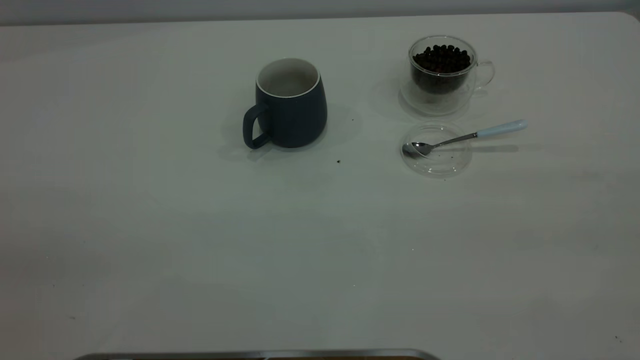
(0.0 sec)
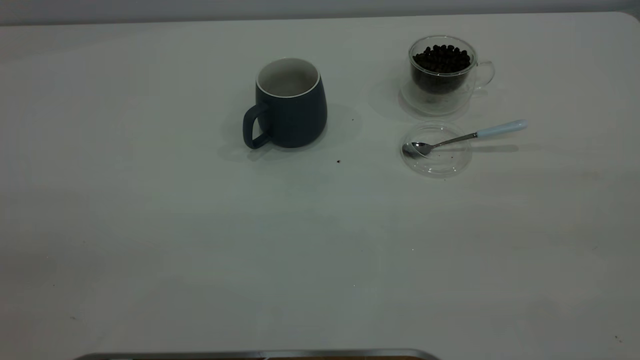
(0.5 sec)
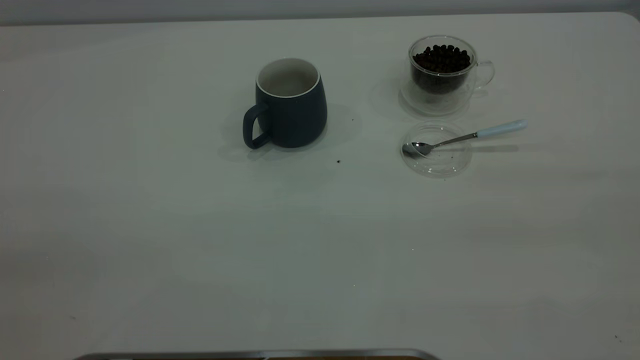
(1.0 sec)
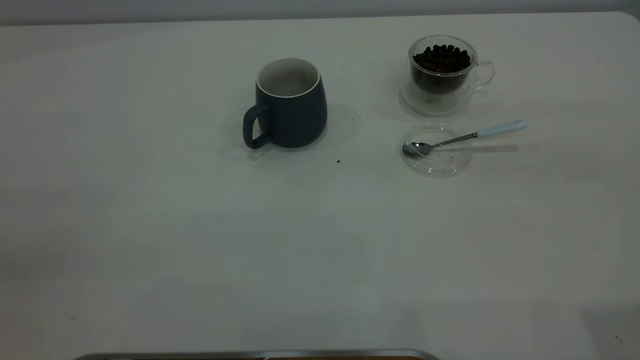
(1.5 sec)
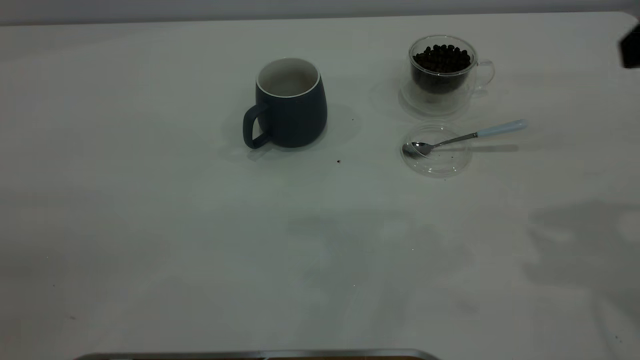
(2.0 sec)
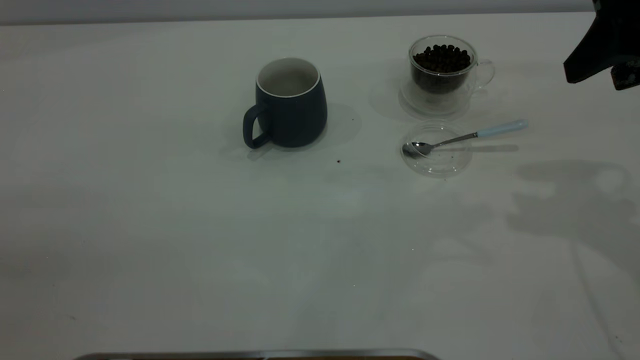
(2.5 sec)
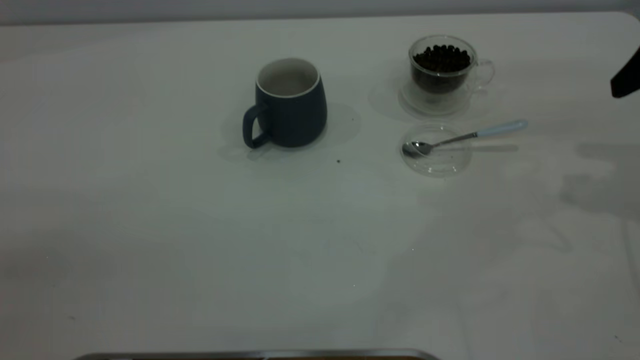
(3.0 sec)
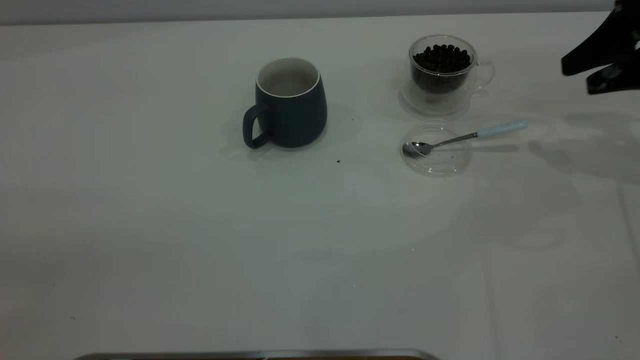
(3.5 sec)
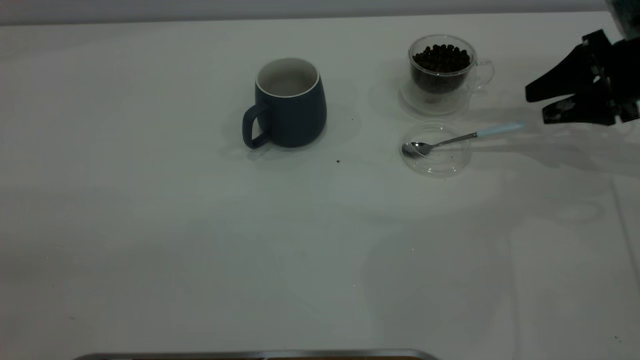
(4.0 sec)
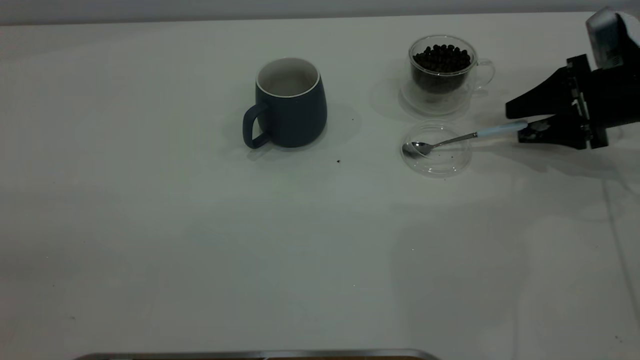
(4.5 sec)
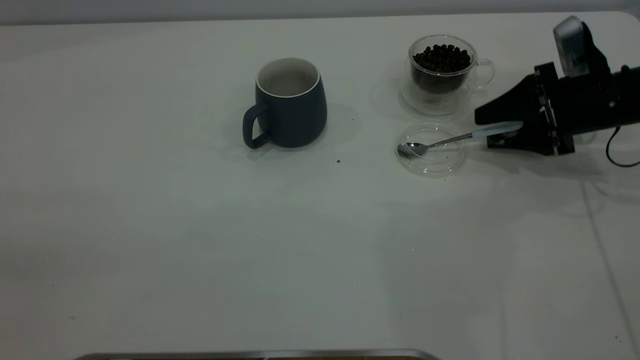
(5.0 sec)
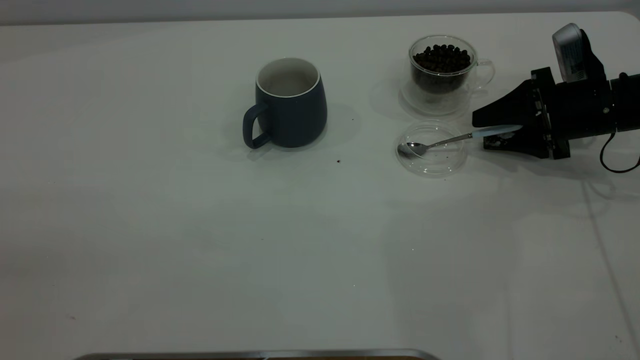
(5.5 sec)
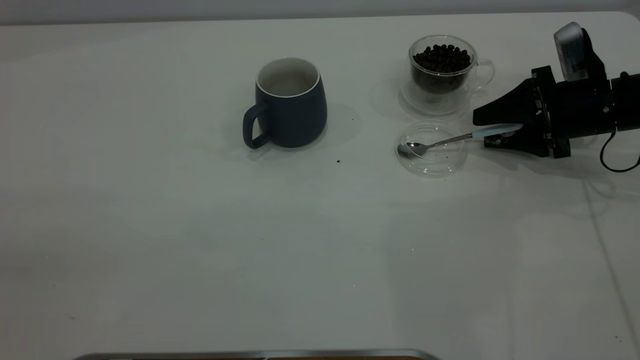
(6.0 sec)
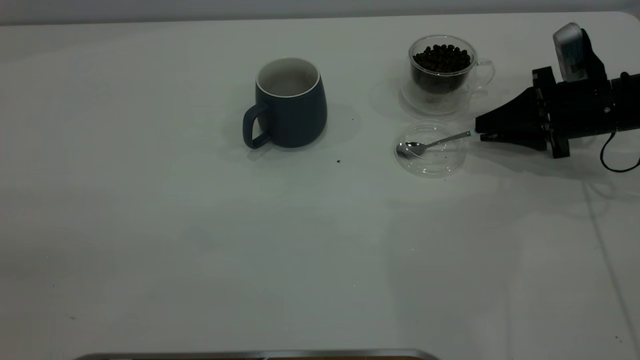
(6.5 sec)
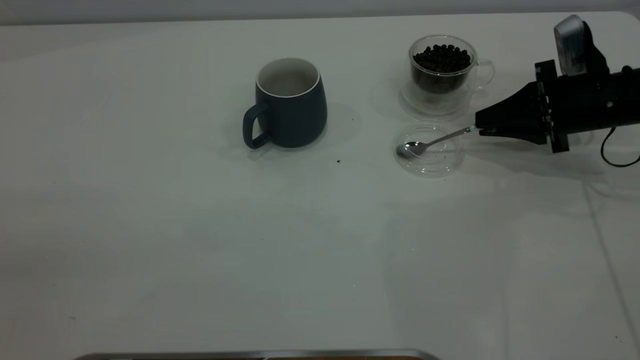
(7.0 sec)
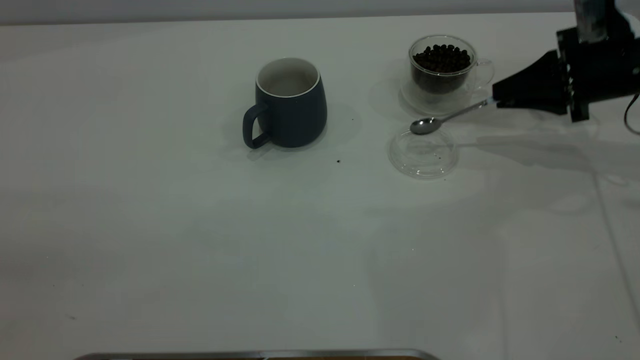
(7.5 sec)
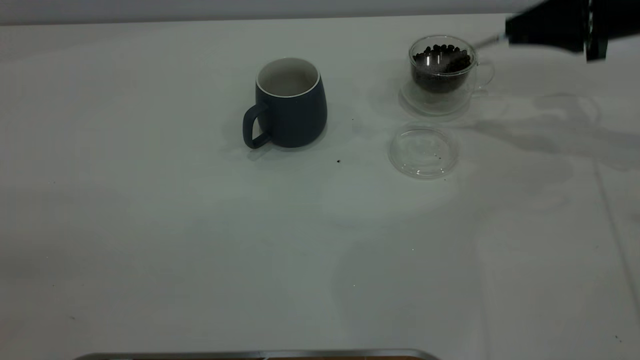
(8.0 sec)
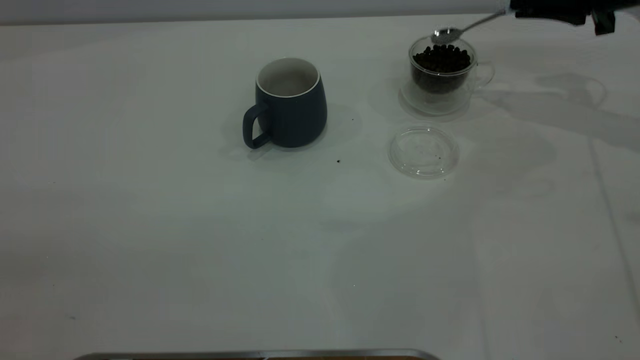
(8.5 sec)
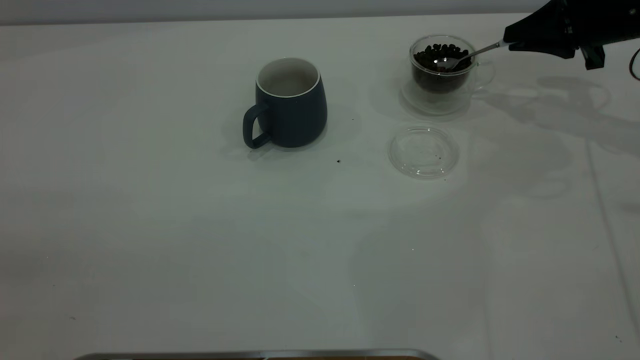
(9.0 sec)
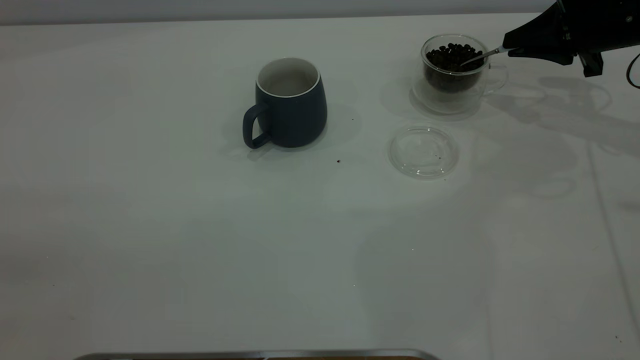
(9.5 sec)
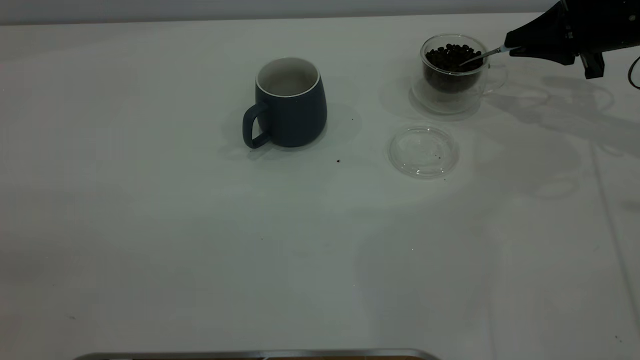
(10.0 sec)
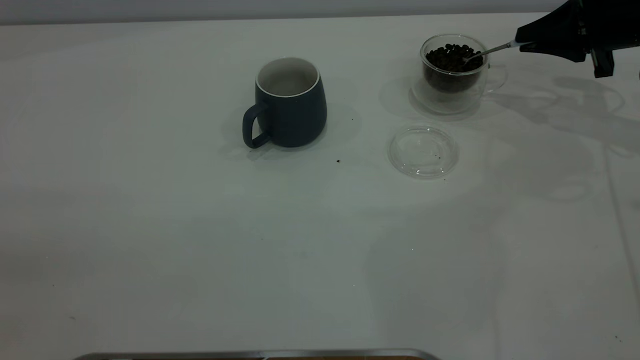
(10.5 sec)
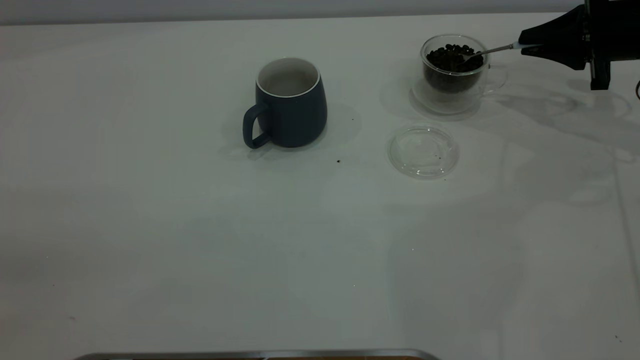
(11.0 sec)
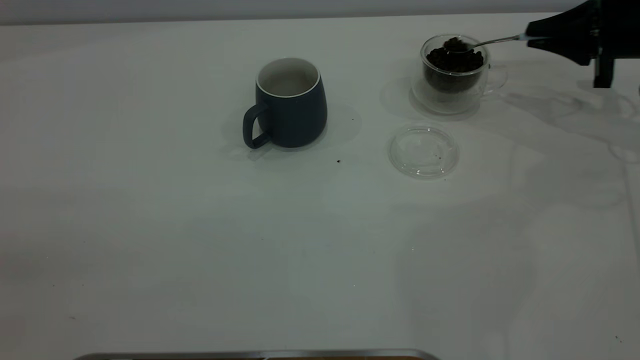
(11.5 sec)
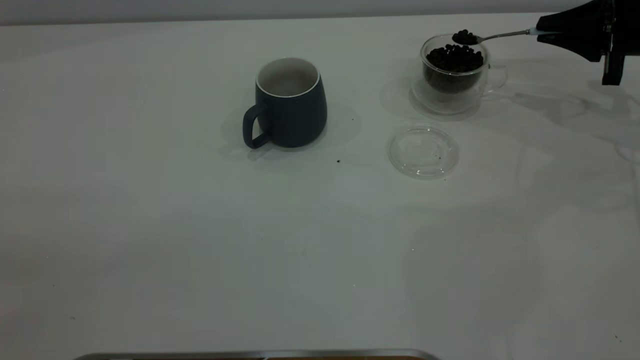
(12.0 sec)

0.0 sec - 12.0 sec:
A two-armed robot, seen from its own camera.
Task of the whole recording: the left gripper place the grey cup in the center of the table, the right gripper take the blue spoon from the cup lid and scoop out the coffee beans from the coffee cup and put them into the grey cup, the right gripper put the spoon back into the cup lid.
Step, 0.0 sec - 7.5 sec: Pick up the spoon.
2.0 sec - 4.0 sec: The right gripper travels downward and forward by some 25 cm.
4.0 sec - 6.0 sec: The right gripper is displaced downward by about 5 cm.
6.0 sec - 8.0 sec: The right gripper goes roughly 10 cm upward, and closes.
8.0 sec - 10.0 sec: The right gripper ends up roughly 5 cm from where it was.
10.0 sec - 12.0 sec: The grippers move only a little.

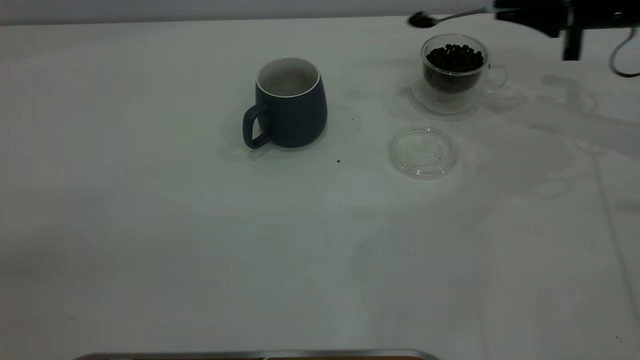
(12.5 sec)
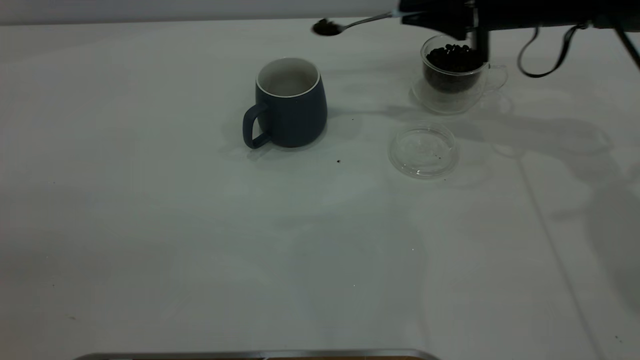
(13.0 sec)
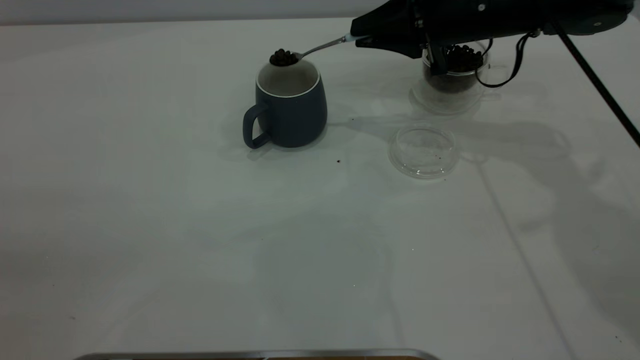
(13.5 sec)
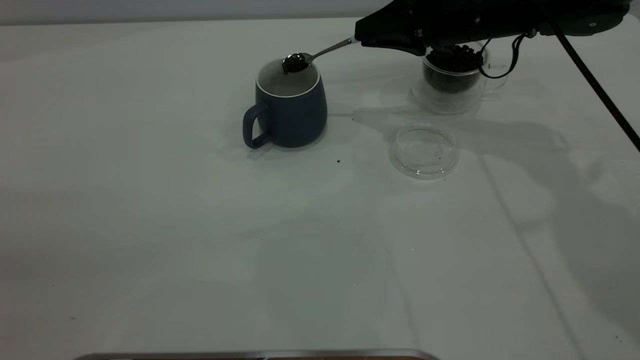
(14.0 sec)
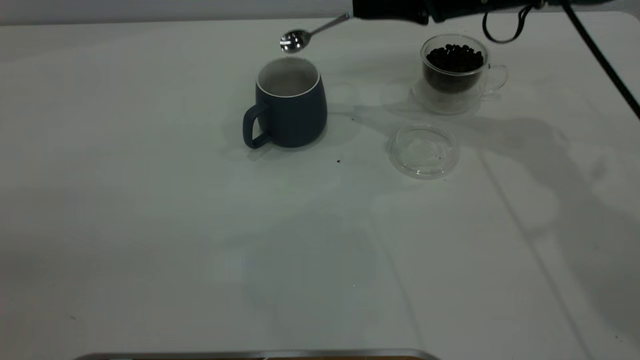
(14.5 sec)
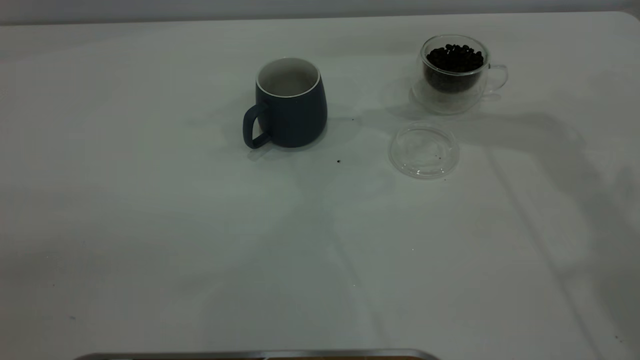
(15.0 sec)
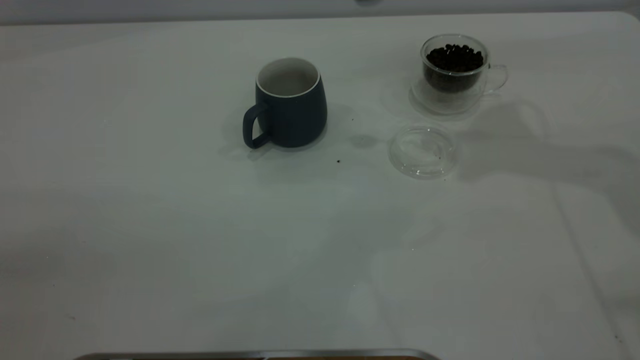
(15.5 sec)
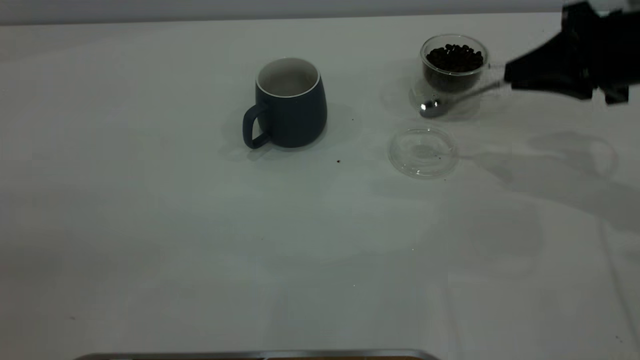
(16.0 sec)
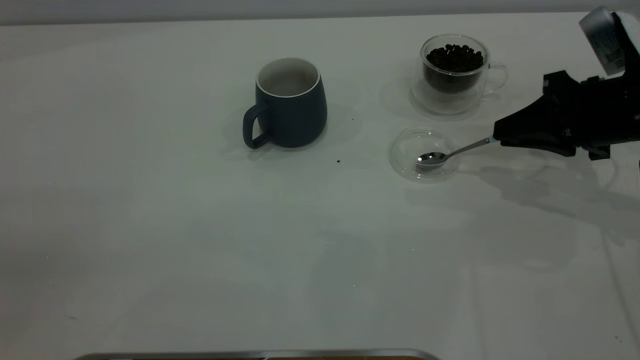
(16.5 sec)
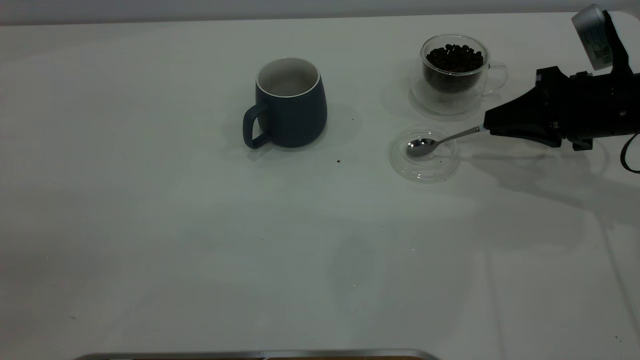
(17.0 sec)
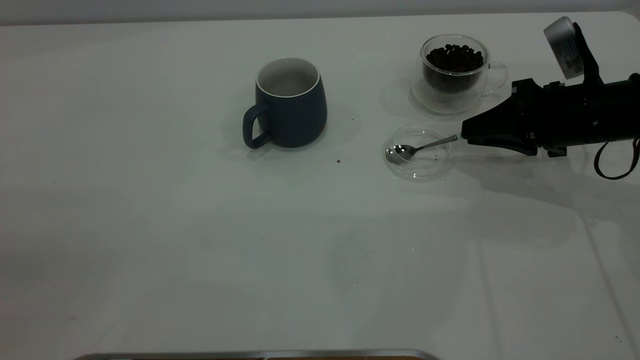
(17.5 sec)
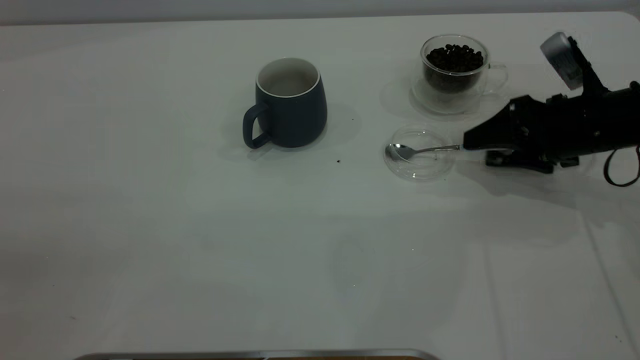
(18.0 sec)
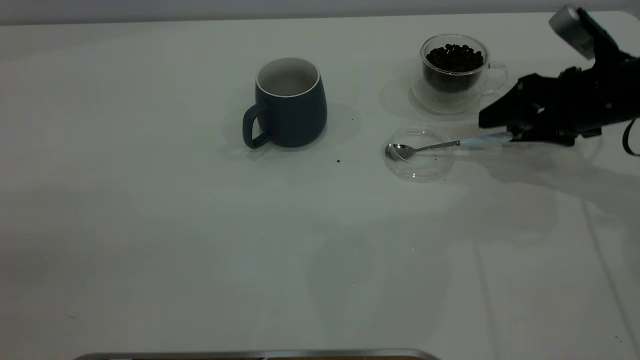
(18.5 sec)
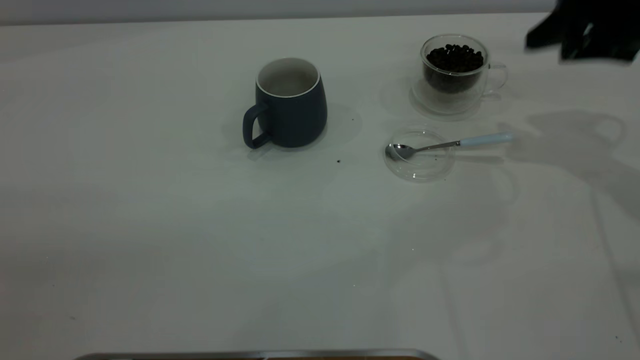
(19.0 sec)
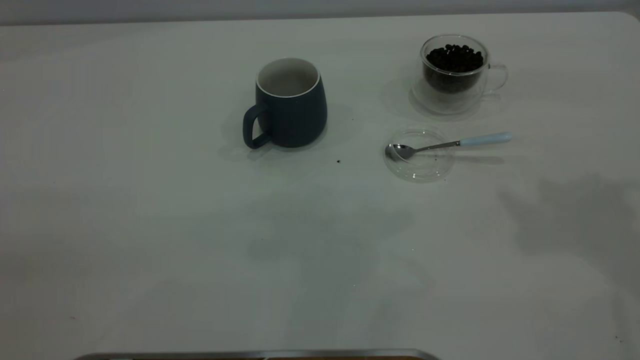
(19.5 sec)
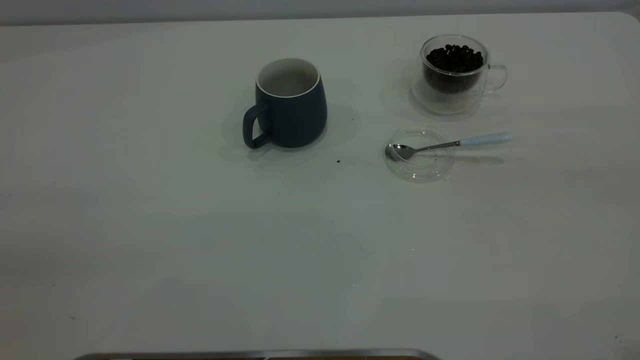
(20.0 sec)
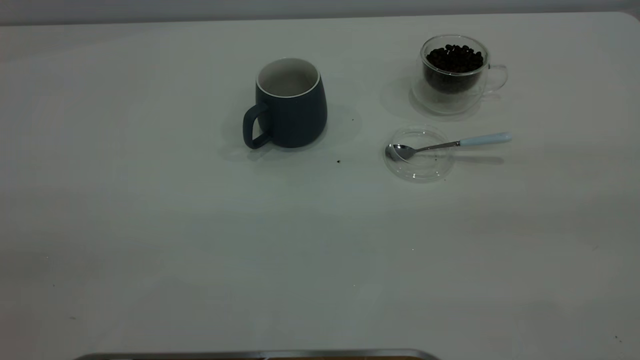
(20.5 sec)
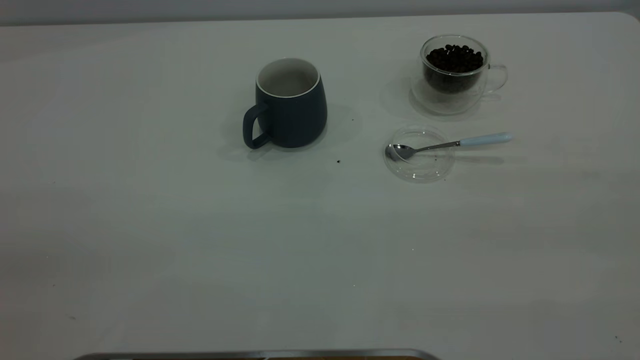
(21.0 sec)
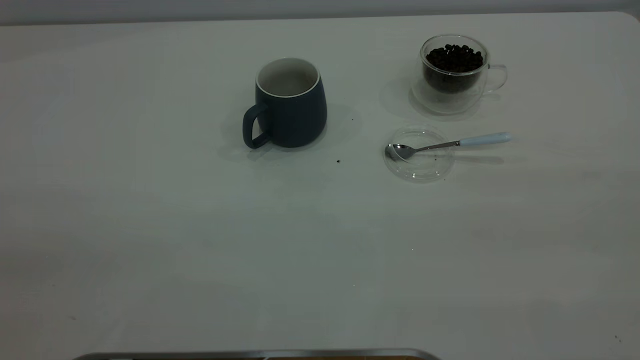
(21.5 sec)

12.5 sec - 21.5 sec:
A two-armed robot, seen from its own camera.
Task of the whole recording: the left gripper place the grey cup in the center of the table, the right gripper take the blue spoon from the cup lid and scoop out the coffee beans from the coffee cup and put them into the grey cup, the right gripper put the spoon back into the cup lid.
Step, 15.0 sec - 18.5 sec: Place the spoon back in its original place.
12.5 sec - 14.5 sec: The right gripper moves to the left, some 15 cm.
14.5 sec - 17.0 sec: The right gripper is displaced to the right, backward and downward by about 20 cm.
17.0 sec - 19.5 sec: The right gripper shifts about 30 cm upward and backward, and opens.
